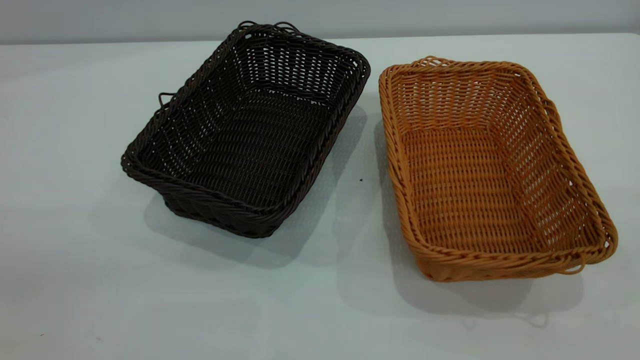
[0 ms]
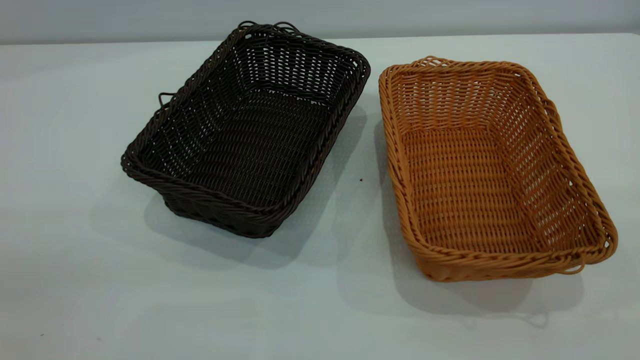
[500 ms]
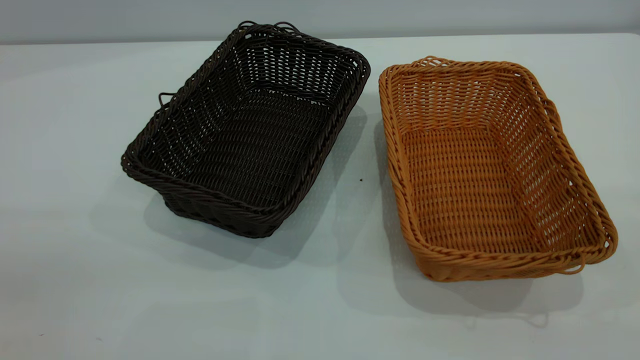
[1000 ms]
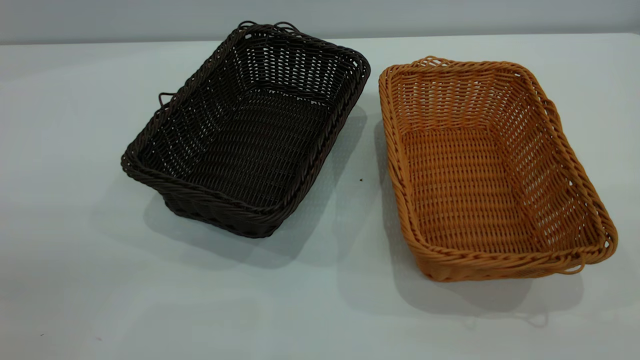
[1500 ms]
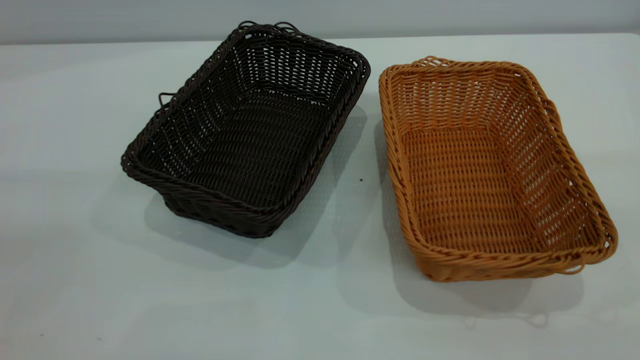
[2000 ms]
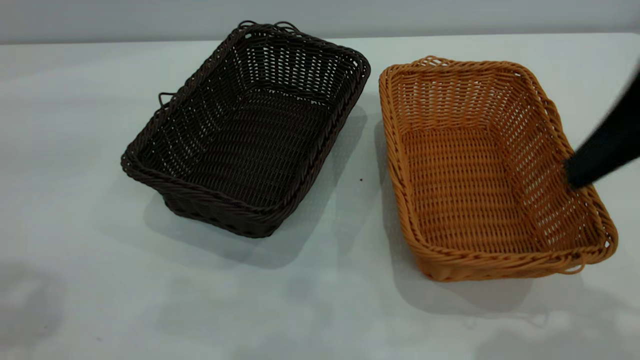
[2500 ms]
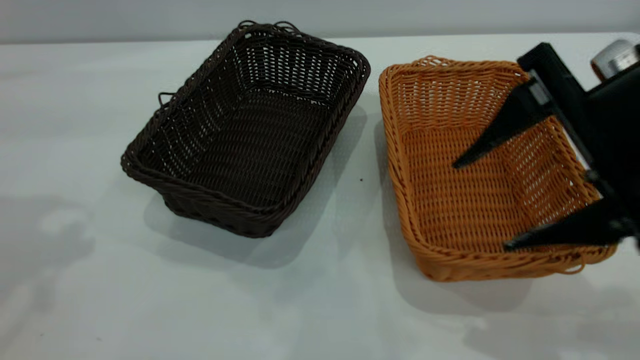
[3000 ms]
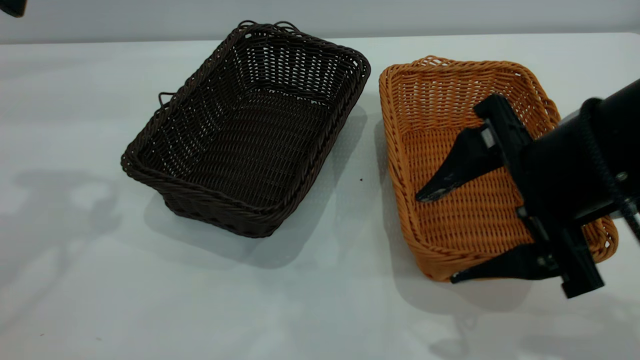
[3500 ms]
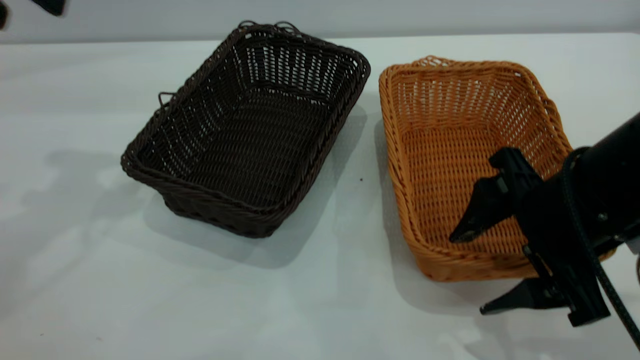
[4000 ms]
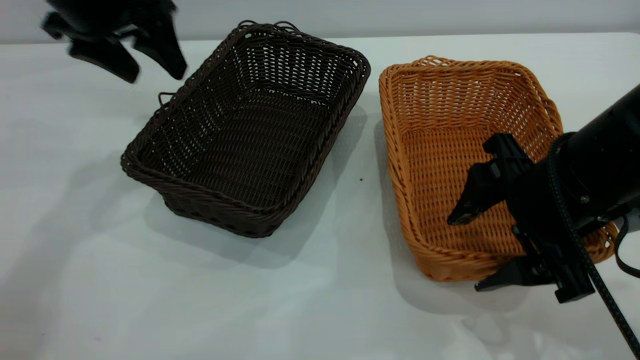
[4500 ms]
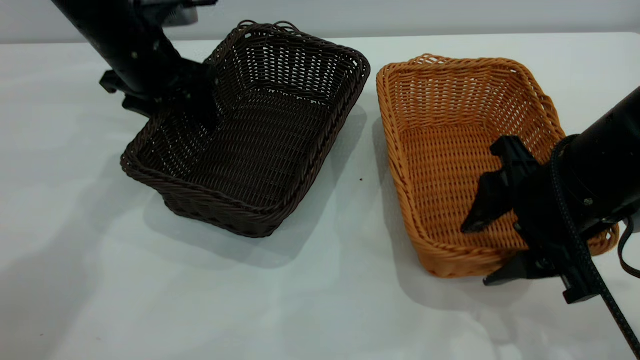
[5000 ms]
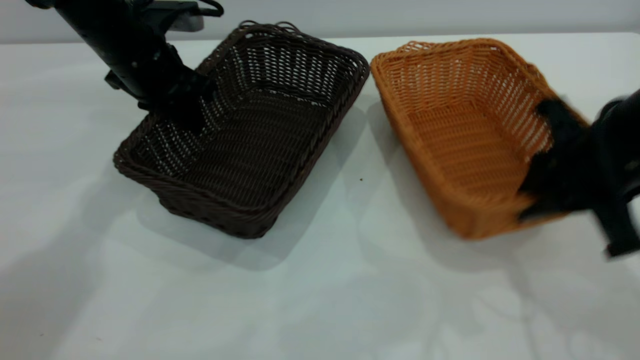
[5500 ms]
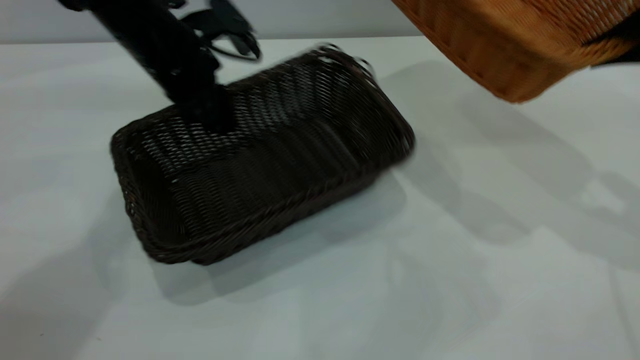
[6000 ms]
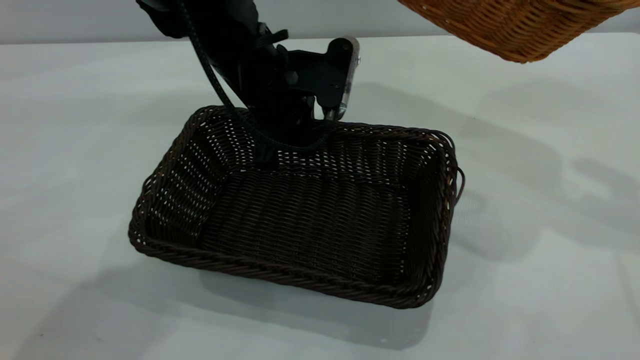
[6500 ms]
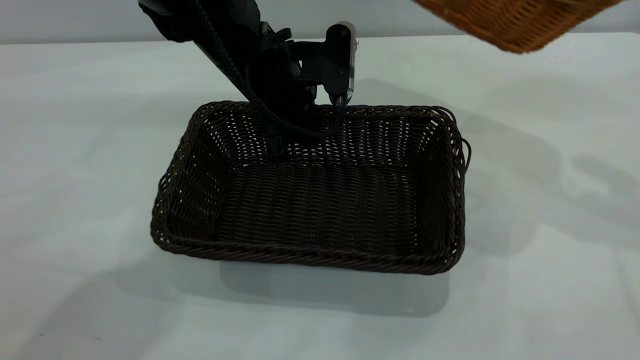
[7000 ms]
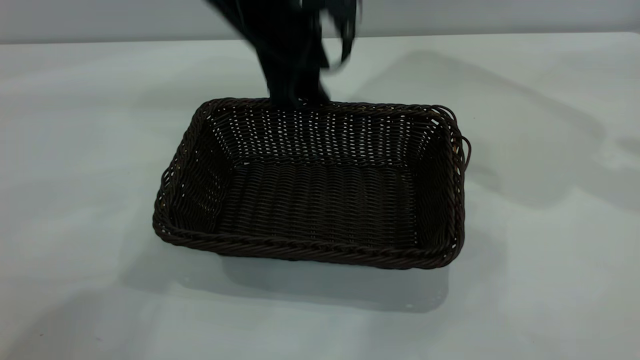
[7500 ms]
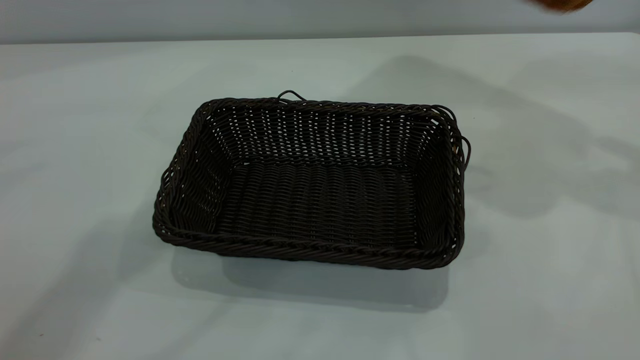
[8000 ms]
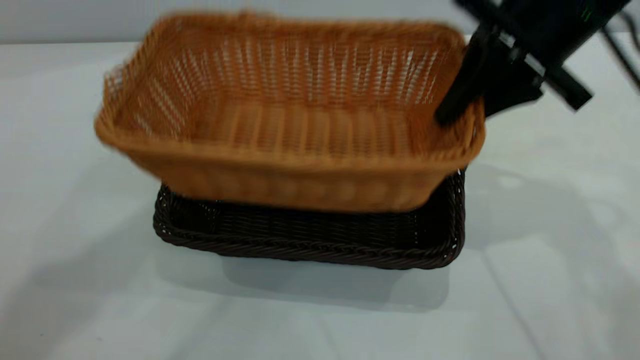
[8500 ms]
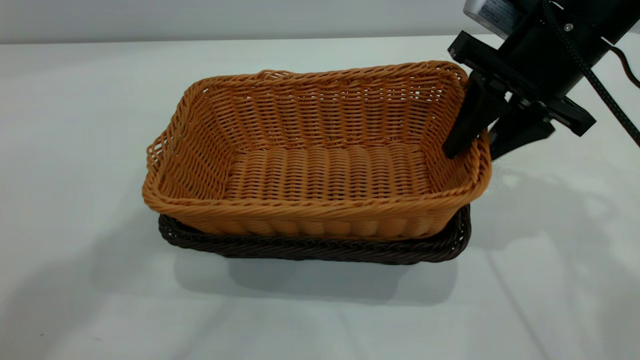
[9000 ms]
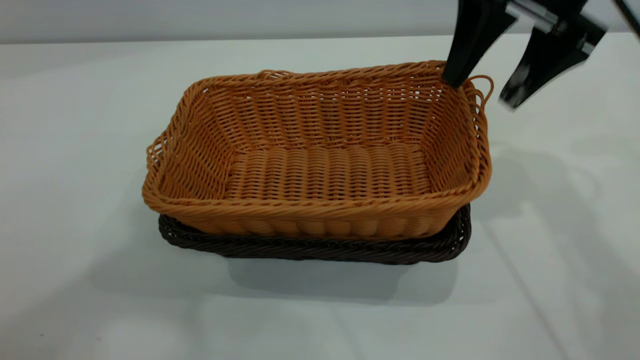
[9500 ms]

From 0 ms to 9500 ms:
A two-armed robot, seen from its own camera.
Task of the whole recording: the left gripper grasp the black basket and place it in the center of the table, the right gripper grasp the brown basket and place it inside the black one.
Step, from 0 ms to 5500 ms: Pick up the light basket with the right gripper.
Step, from 6000 ms to 7500 ms: Move the dark basket to the center of view.
Step, from 8000 ms to 9500 ms: Place the light basket on the dark basket.
From 2000 ms to 4000 ms: The right gripper goes approximately 25 cm downward and forward.
From 4000 ms to 5500 ms: The left gripper goes about 20 cm downward, forward and to the right, and closes up. Meanwhile the right gripper changes place by approximately 5 cm, and closes.
From 5500 ms to 7500 ms: The right gripper is displaced upward and to the right by roughly 20 cm. Meanwhile the left gripper shifts approximately 15 cm to the right and upward, and opens its fingers.
From 7500 ms to 9500 ms: The right gripper moves to the left and downward, some 20 cm, and opens up, while the left gripper travels upward and backward by about 40 cm.
